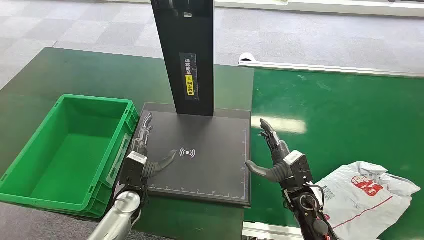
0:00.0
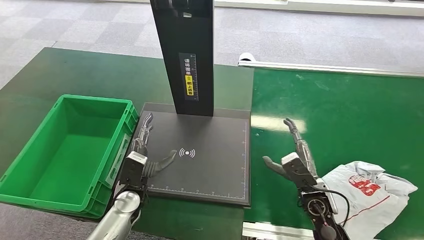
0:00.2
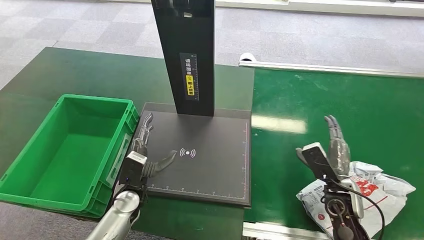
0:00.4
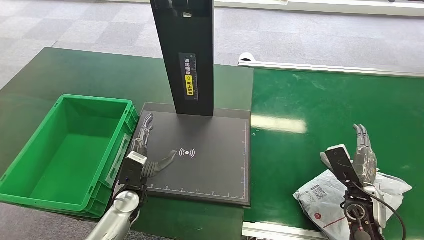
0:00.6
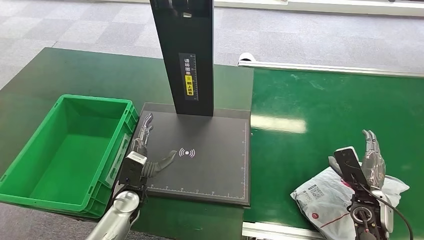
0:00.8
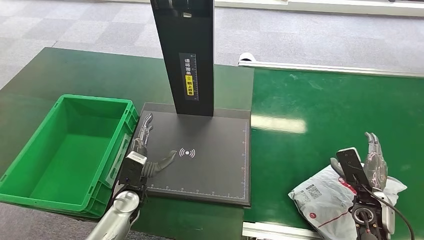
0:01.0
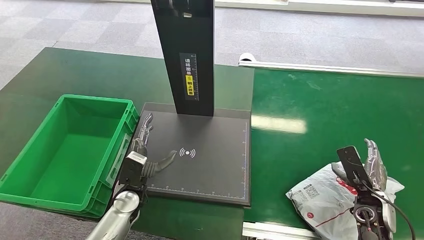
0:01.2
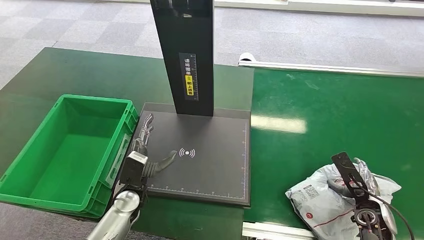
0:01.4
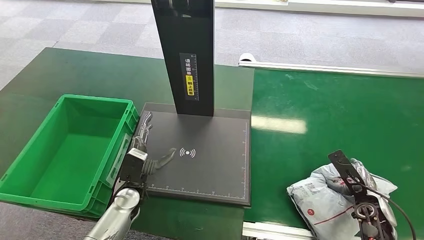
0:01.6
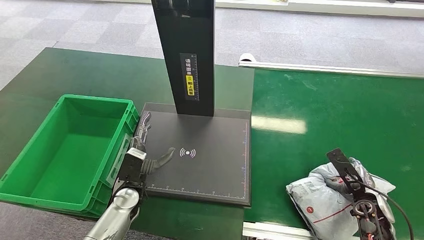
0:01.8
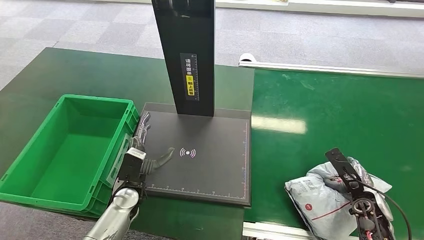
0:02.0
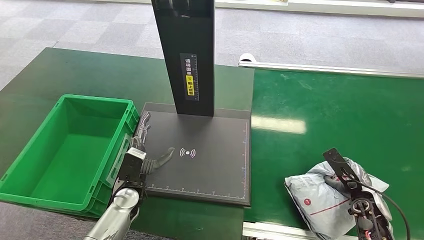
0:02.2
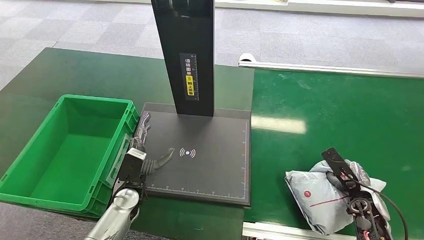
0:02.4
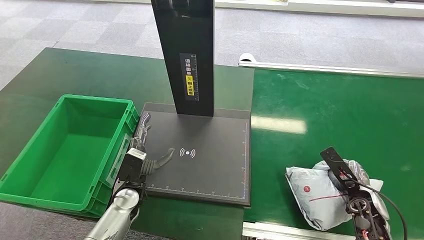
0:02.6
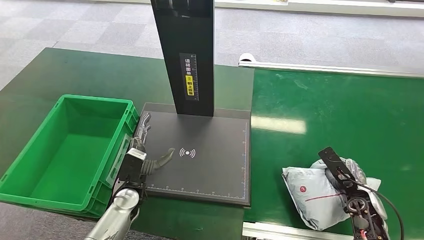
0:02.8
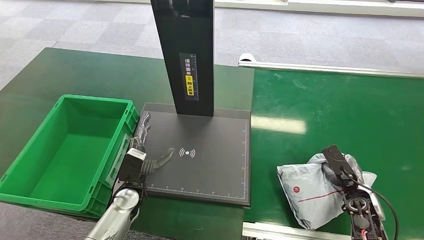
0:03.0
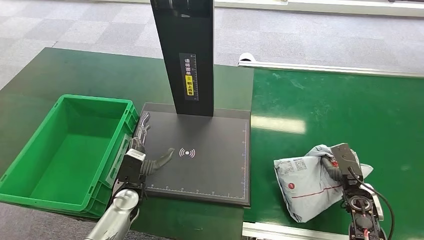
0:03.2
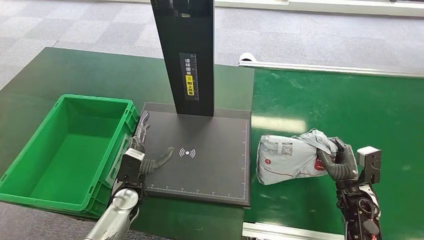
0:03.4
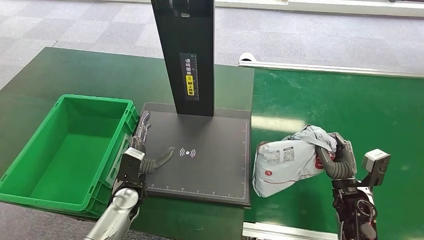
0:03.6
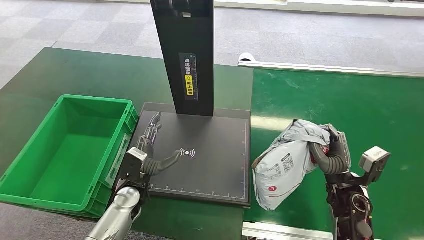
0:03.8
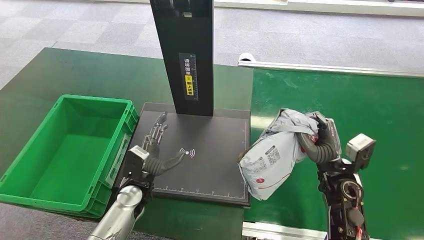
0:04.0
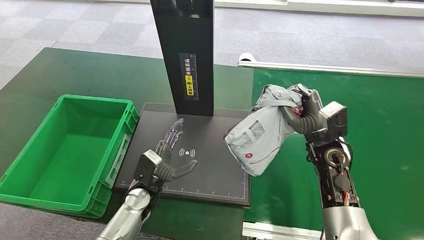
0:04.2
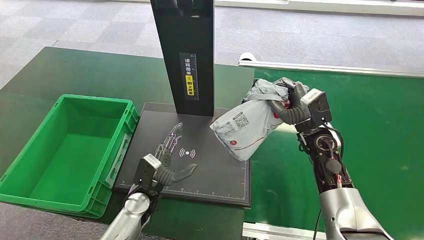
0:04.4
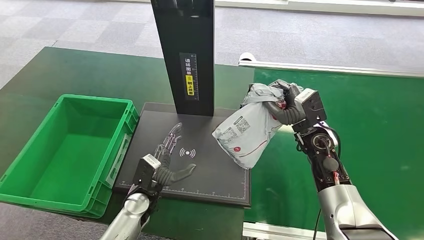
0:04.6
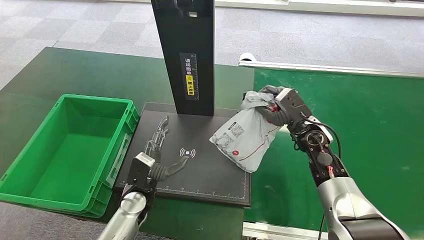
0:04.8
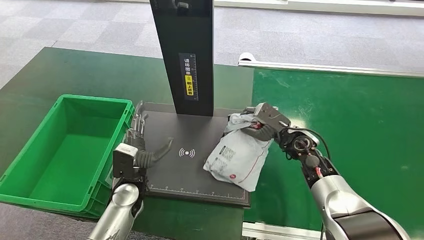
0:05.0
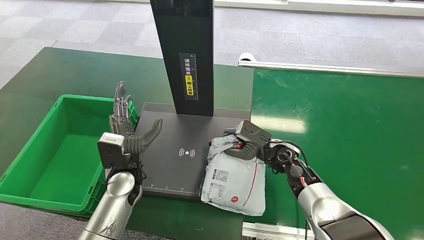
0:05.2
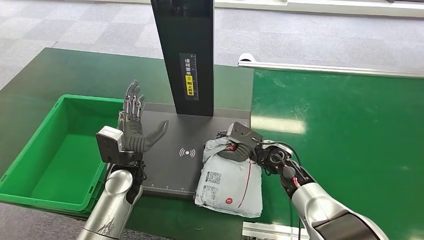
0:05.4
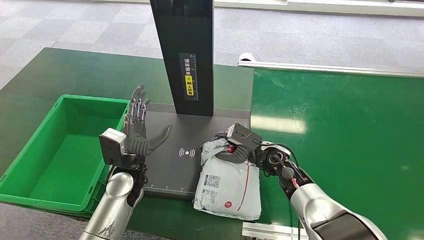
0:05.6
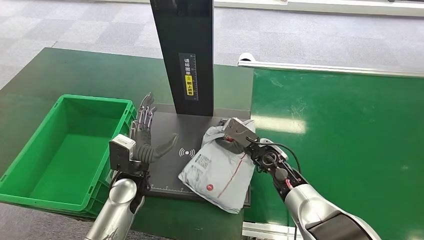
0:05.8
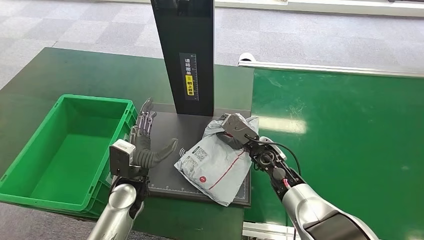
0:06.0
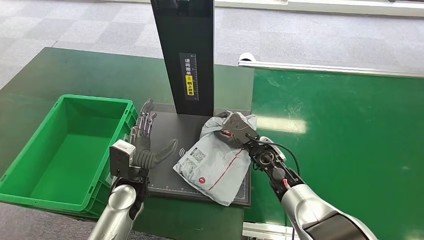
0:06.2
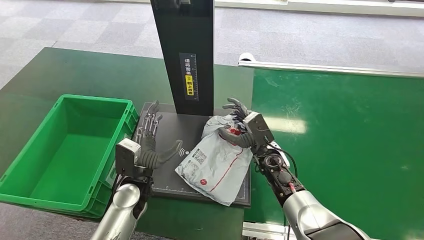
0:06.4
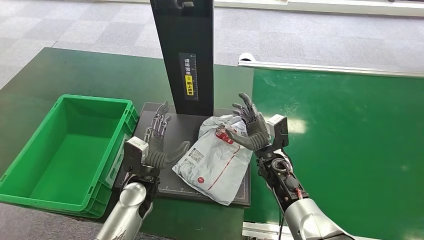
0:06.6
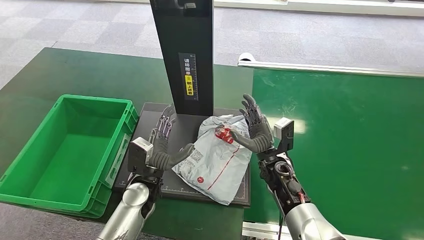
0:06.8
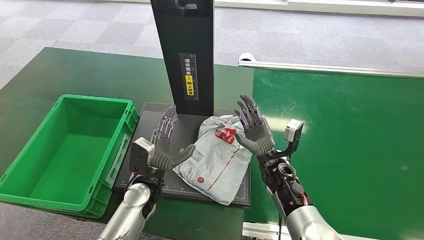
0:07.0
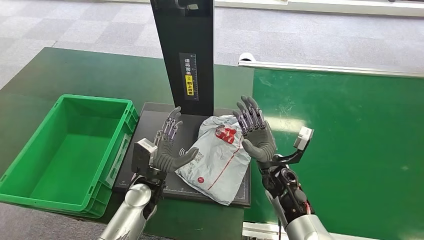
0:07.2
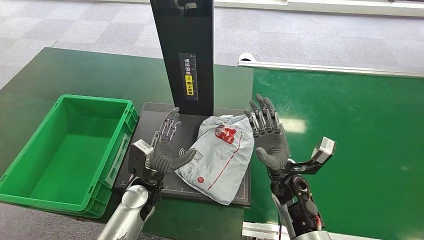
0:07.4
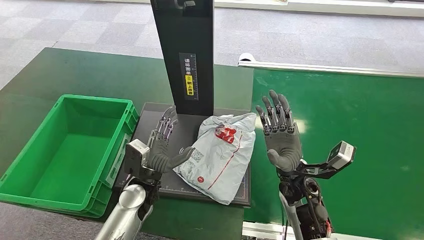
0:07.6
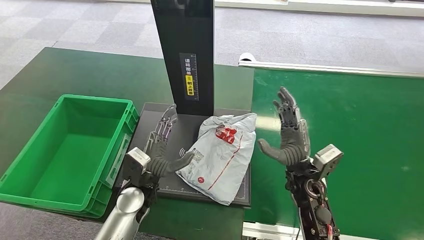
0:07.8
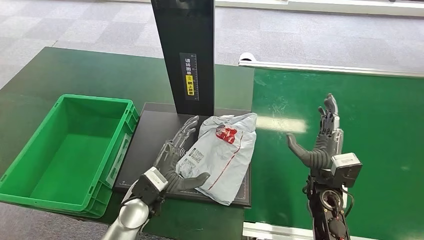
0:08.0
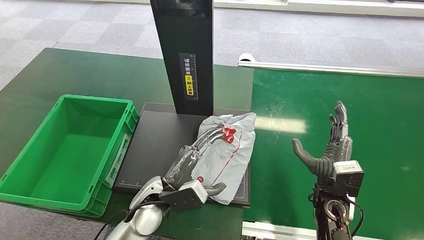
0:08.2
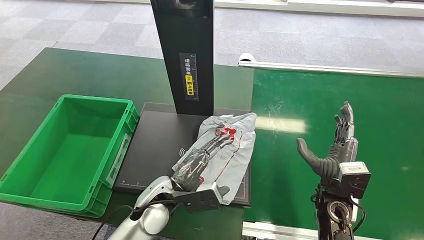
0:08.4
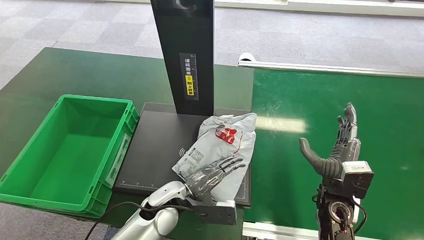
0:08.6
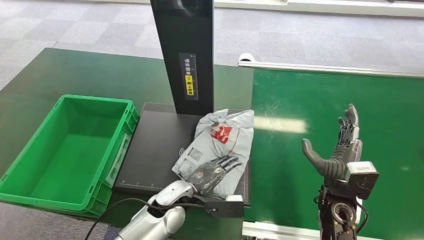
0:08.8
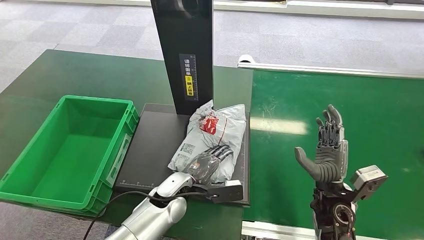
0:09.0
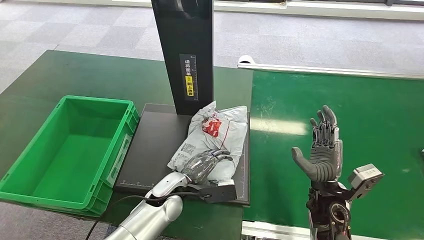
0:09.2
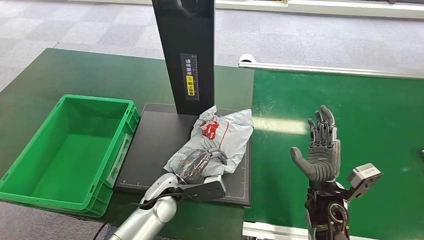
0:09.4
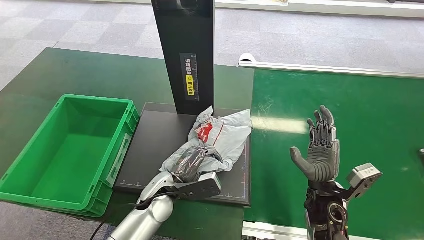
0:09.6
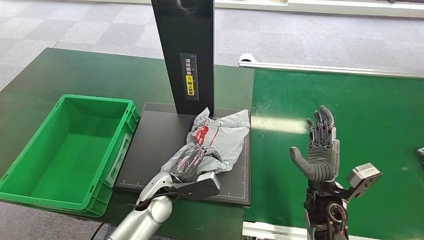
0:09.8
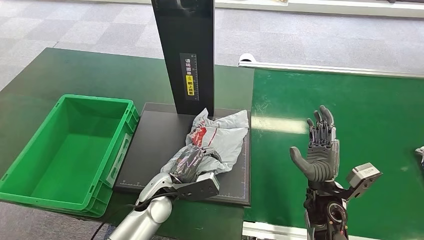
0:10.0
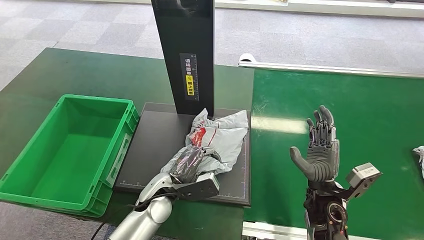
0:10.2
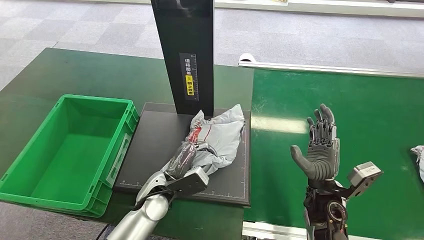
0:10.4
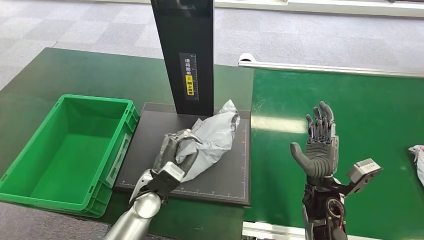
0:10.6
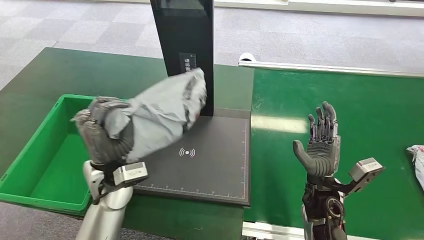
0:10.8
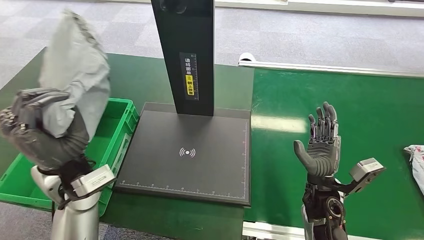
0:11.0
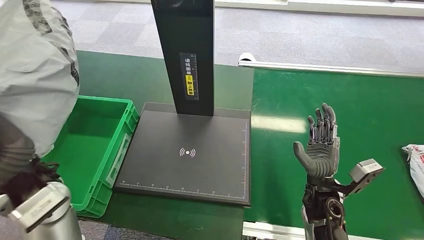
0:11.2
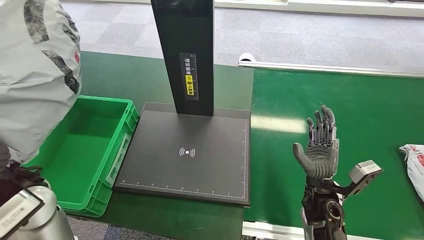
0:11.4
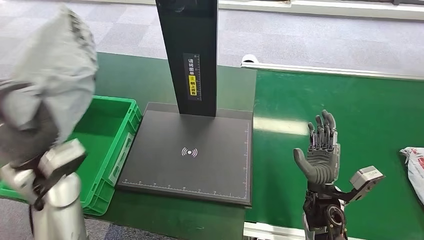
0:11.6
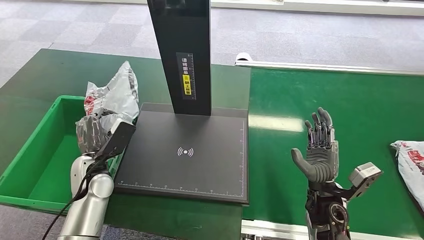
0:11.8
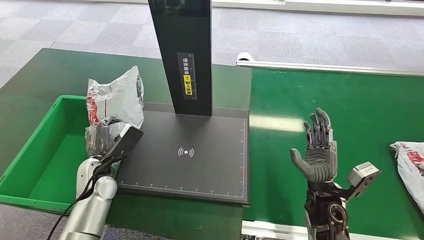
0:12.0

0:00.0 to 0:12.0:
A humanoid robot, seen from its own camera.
Step, 0:00.0 to 0:03.4: Pick up the package from the conveyor belt.
Step, 0:03.6 to 0:07.4: Place the package onto the inbound machine.
Step, 0:07.6 to 0:10.8: Pick up the package from the inbound machine.
0:01.6 to 0:03.0: The hands make only small movements.
0:03.0 to 0:04.4: The right hand goes roughly 25 cm to the left, upward and forward.
0:06.0 to 0:07.6: The right hand is displaced backward by roughly 5 cm.

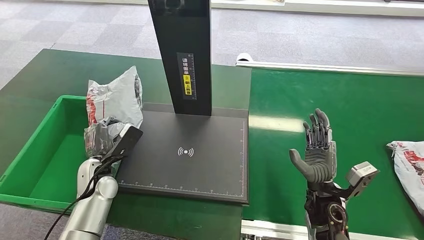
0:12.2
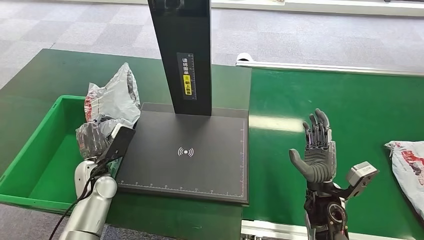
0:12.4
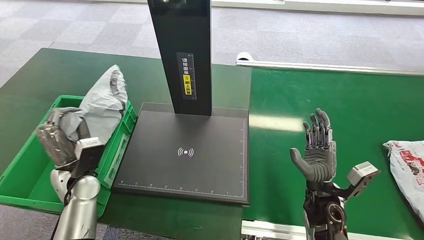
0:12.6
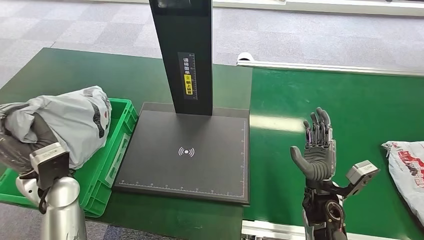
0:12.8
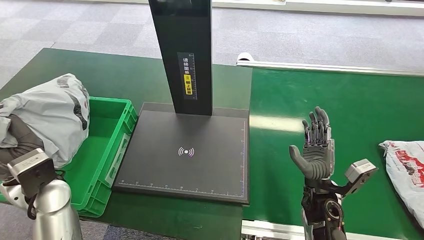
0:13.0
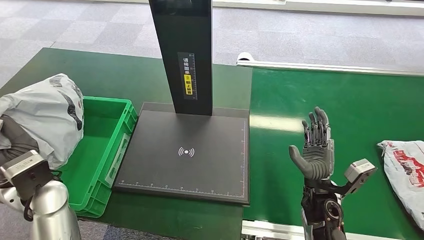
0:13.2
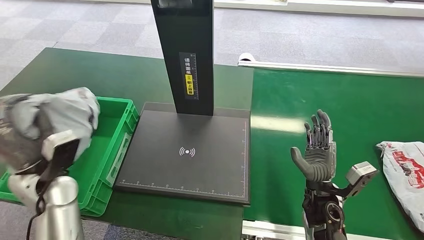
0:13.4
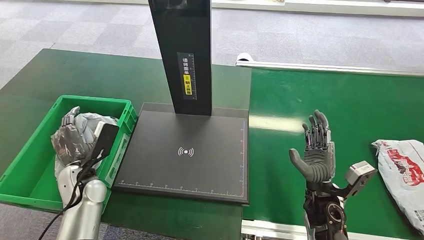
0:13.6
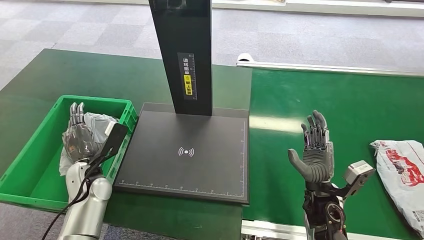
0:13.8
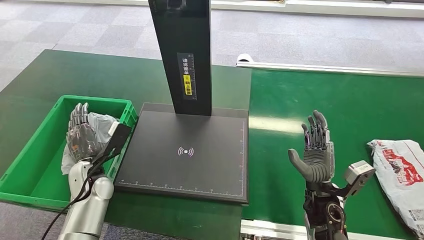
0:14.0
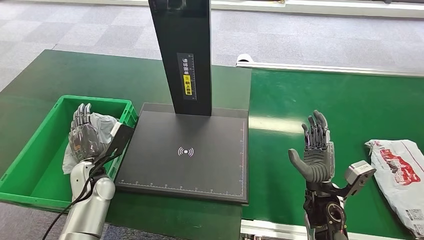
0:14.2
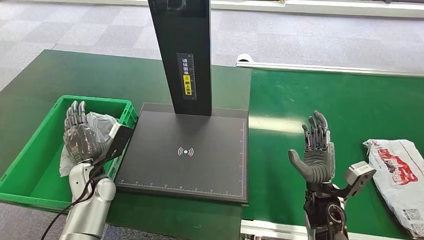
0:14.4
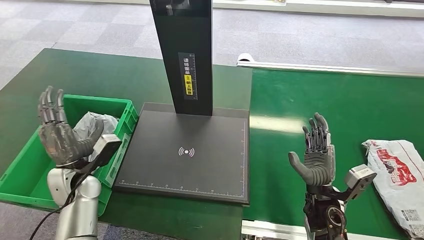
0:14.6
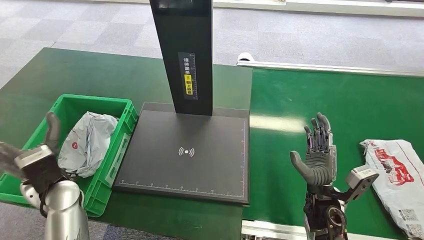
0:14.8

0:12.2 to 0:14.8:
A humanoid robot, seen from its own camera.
Step, 0:12.2 to 0:14.8: Place the package into the parcel locker.
0:13.4 to 0:14.8: The left hand goes downward and returns, some 10 cm each way.
